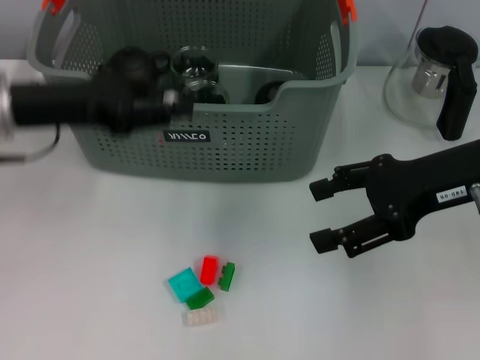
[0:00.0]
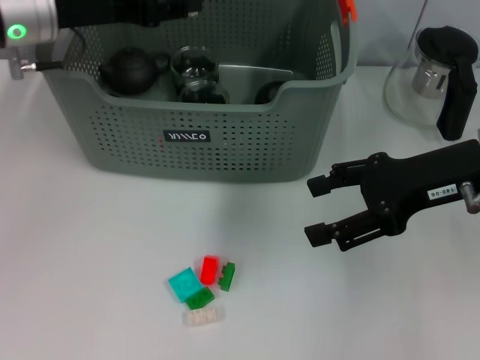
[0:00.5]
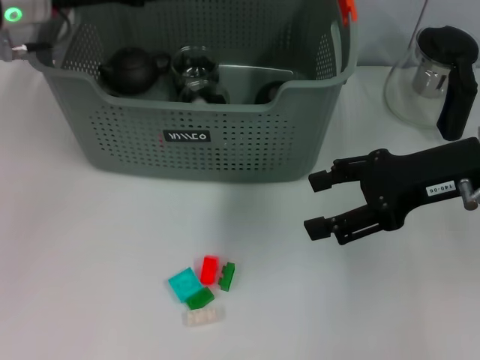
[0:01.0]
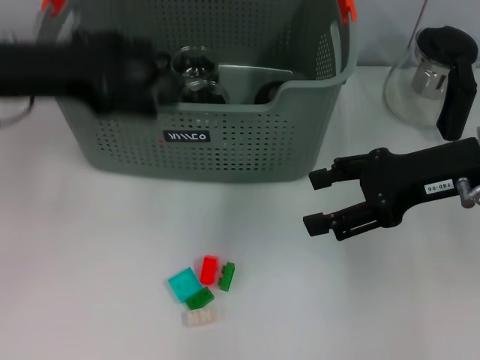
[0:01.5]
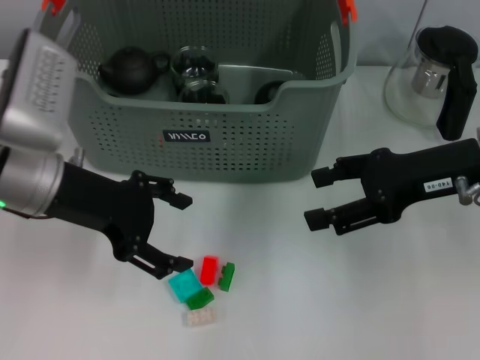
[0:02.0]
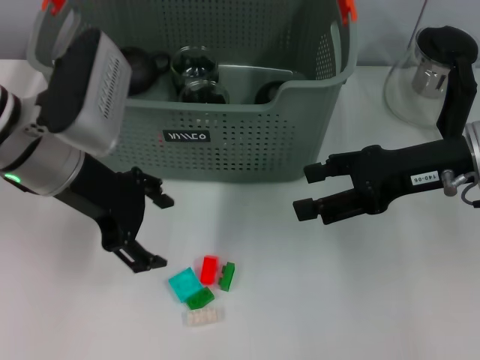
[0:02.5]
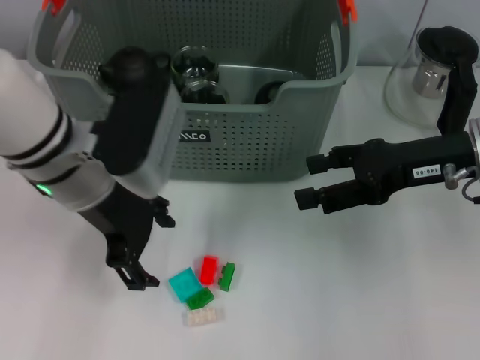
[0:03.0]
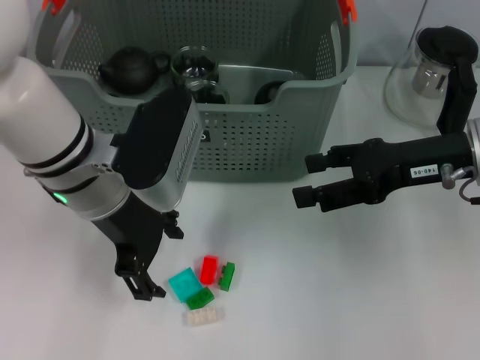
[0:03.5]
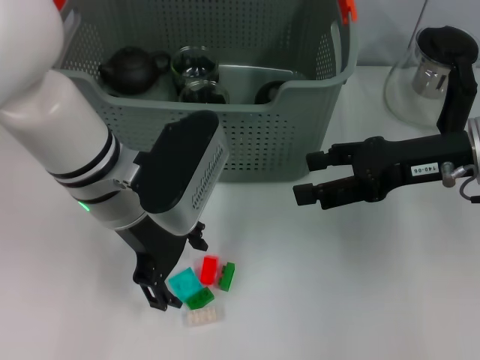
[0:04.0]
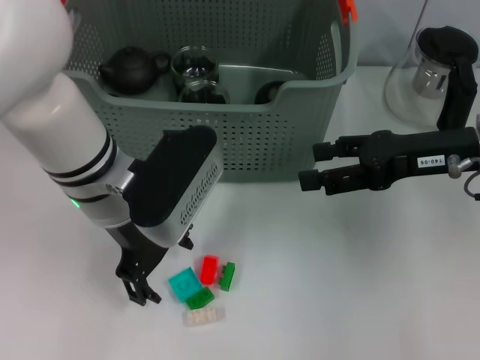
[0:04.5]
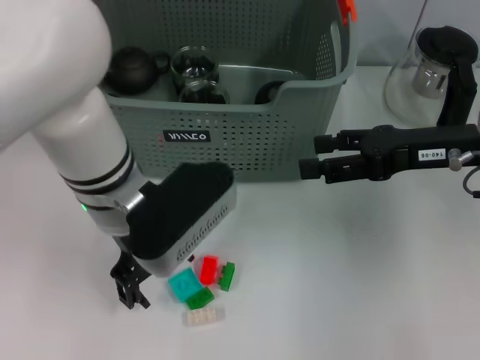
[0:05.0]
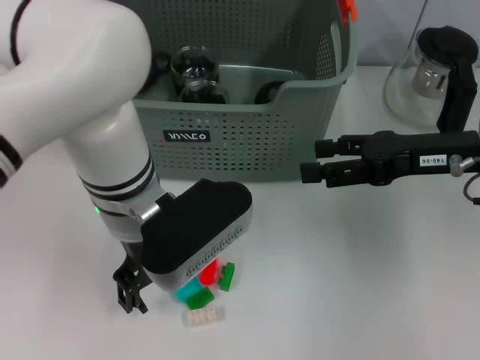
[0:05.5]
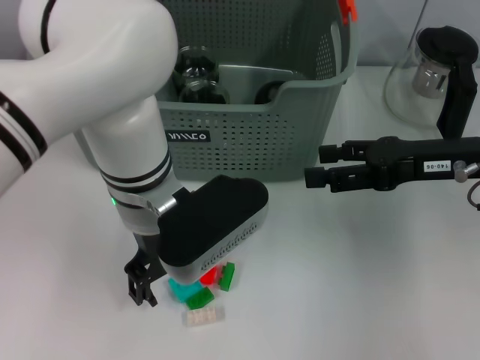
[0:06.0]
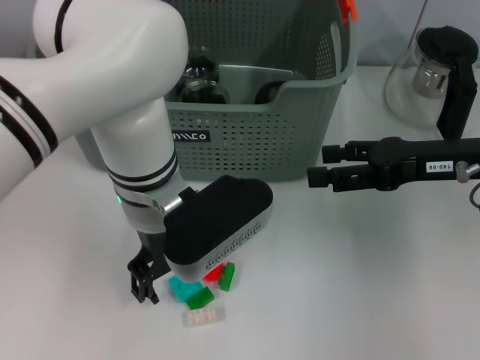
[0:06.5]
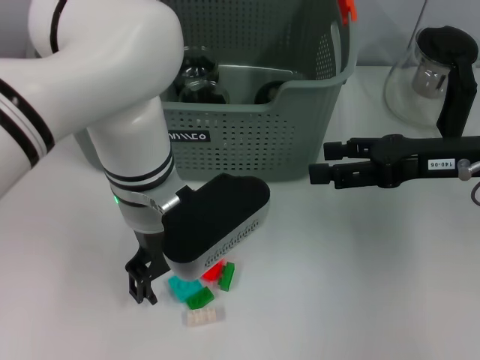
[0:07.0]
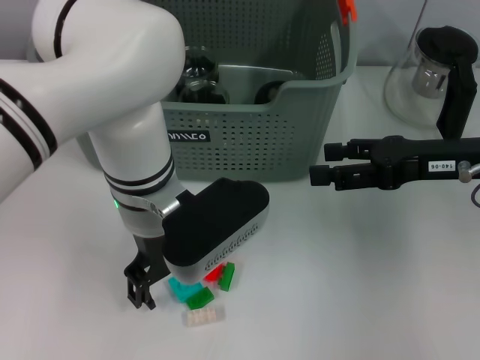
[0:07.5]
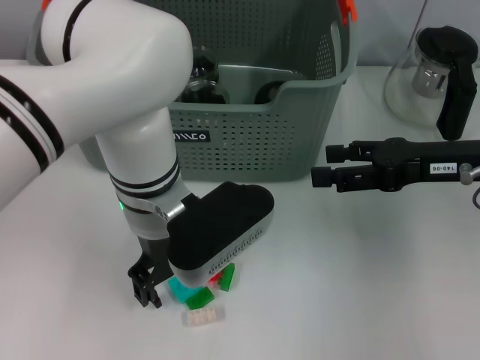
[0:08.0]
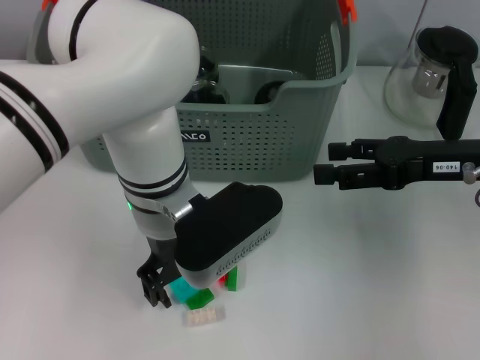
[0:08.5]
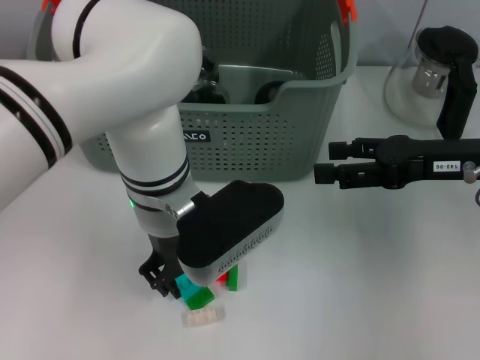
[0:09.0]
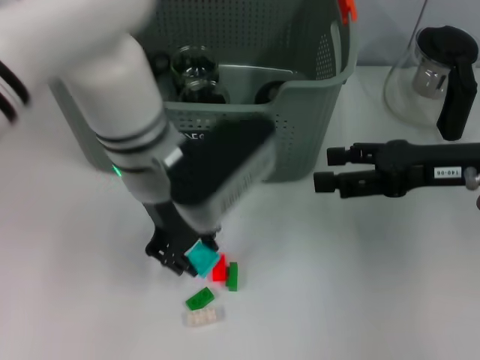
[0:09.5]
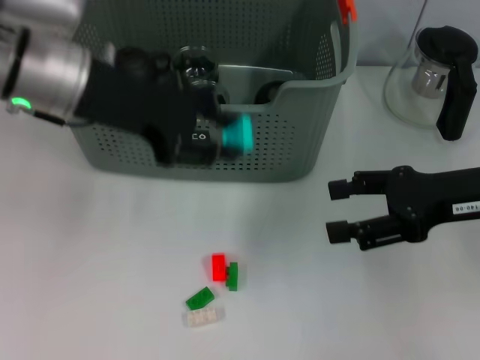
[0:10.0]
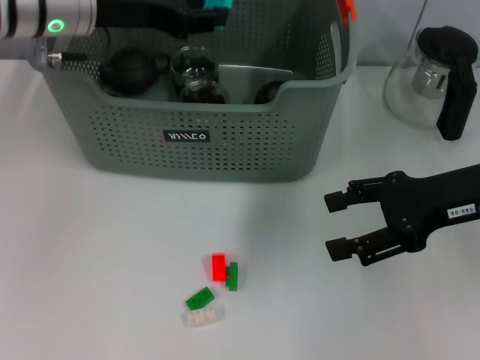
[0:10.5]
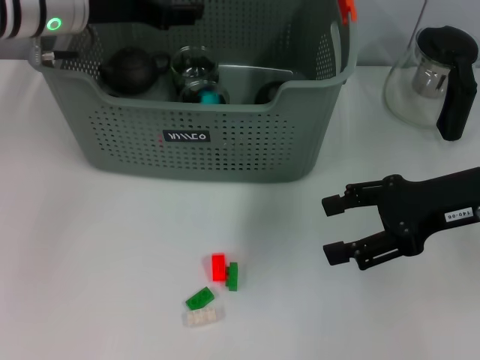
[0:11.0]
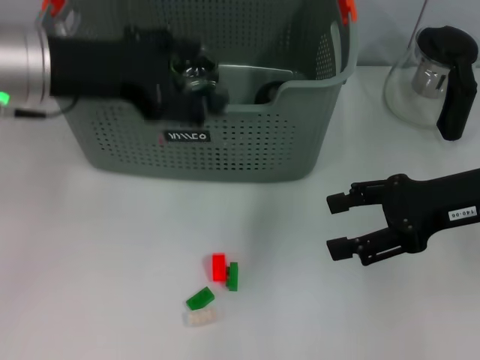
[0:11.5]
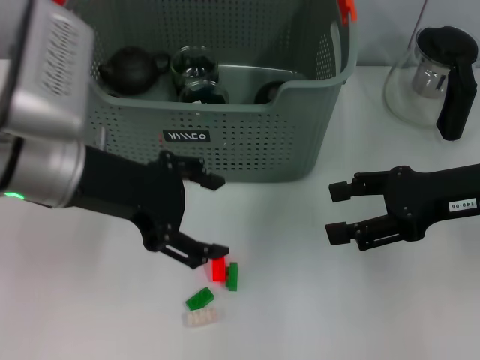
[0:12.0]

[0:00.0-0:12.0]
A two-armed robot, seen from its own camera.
Task of the whole recording: pick up the teacup on the table and place it into the storage bin, pick up the block on the table and place it into the storage bin.
Step, 1.0 to 9.0 s: Grasp the light blue block with left gripper.
Step, 9.5 to 10.5 s: Place the light blue block in the storage box with left gripper.
0.0 to 2.0 s: The left gripper goes forward and returns, about 10 cm each way, and opens up.
2.0 to 4.0 s: The left gripper moves to the right, some 10 cm.
6.0 to 8.0 s: Neither gripper changes place.
8.0 to 10.0 s: The left gripper travels to the left and upward by roughly 15 cm, and closes its fingers.
10.0 to 12.0 s: The left gripper travels backward by some 5 cm, and opens.

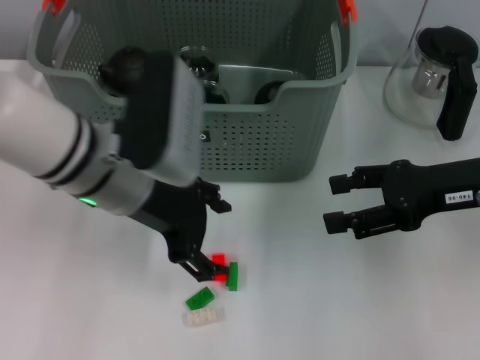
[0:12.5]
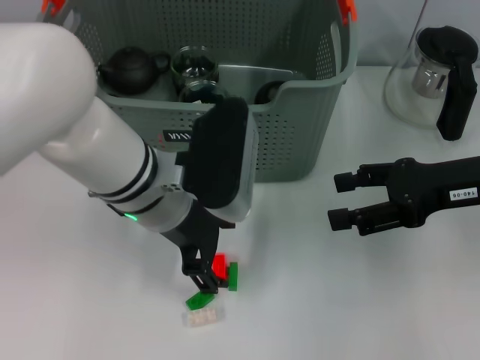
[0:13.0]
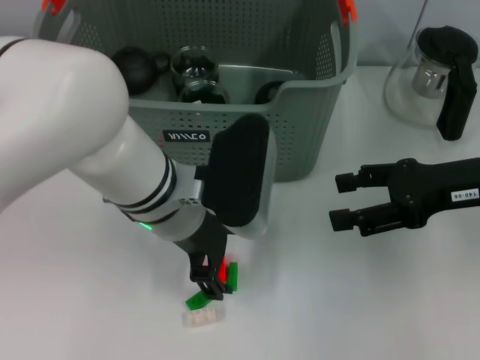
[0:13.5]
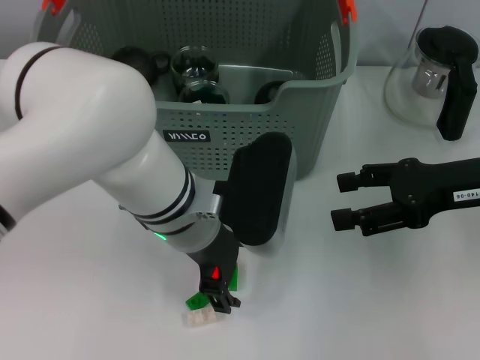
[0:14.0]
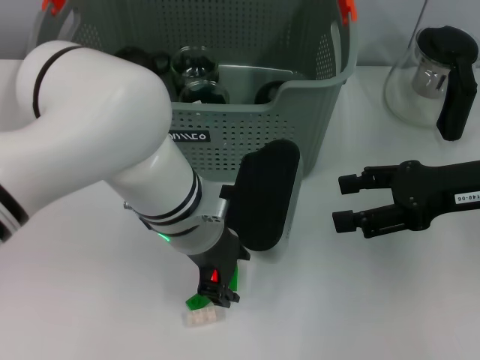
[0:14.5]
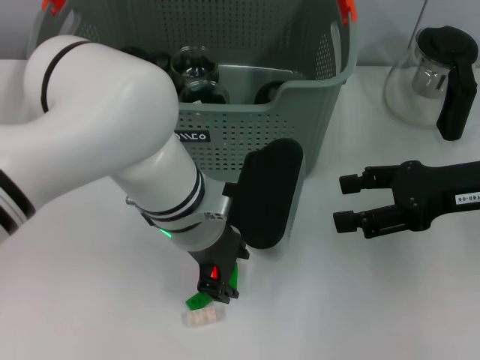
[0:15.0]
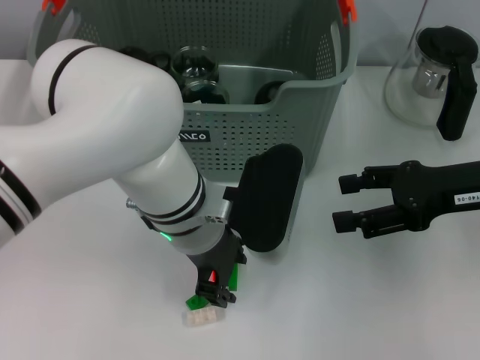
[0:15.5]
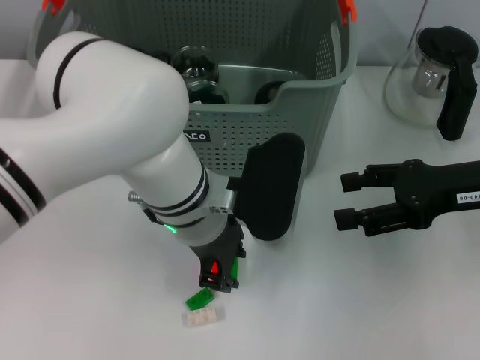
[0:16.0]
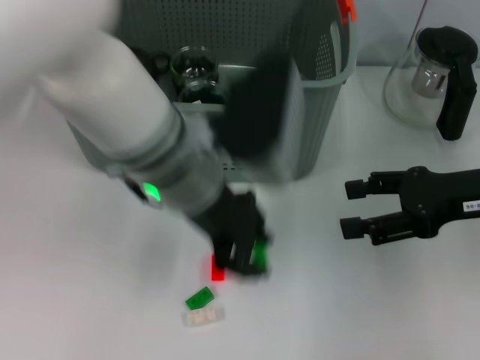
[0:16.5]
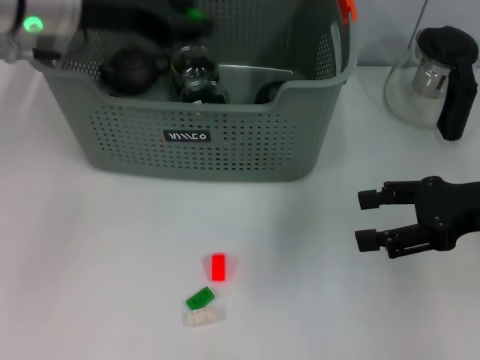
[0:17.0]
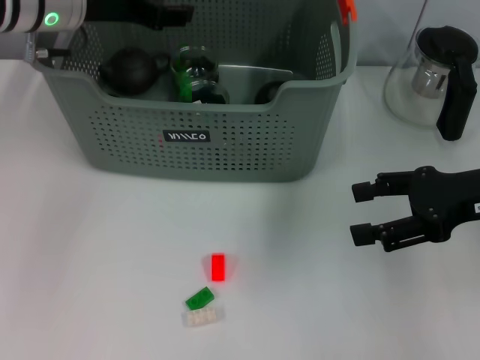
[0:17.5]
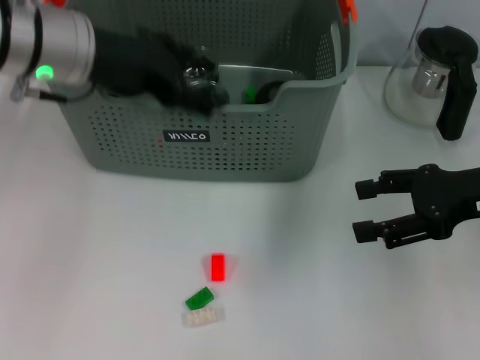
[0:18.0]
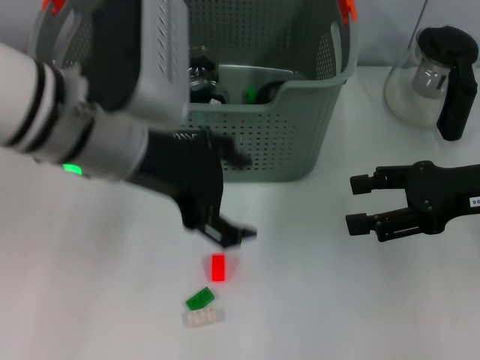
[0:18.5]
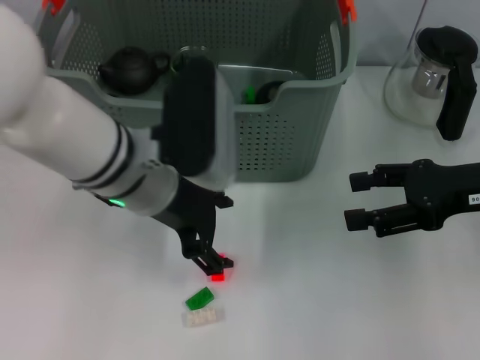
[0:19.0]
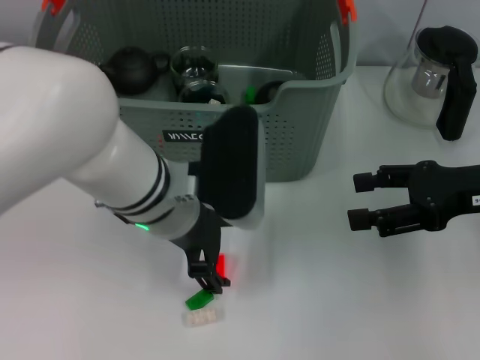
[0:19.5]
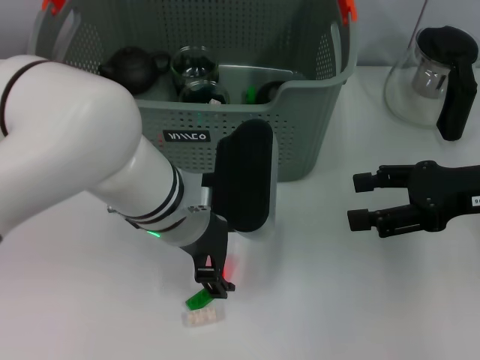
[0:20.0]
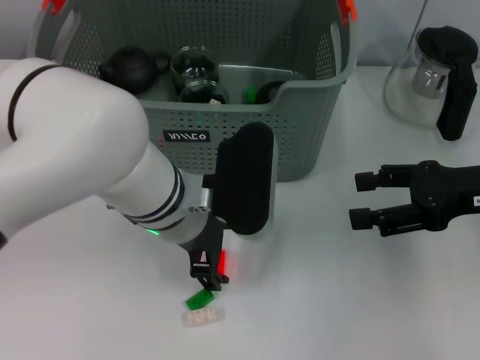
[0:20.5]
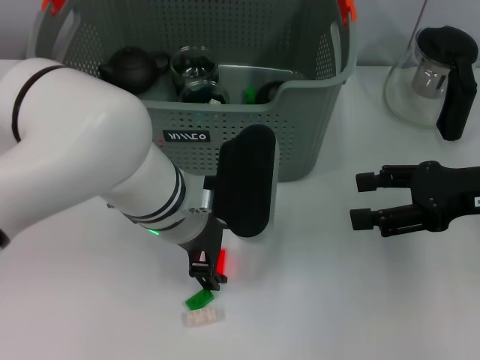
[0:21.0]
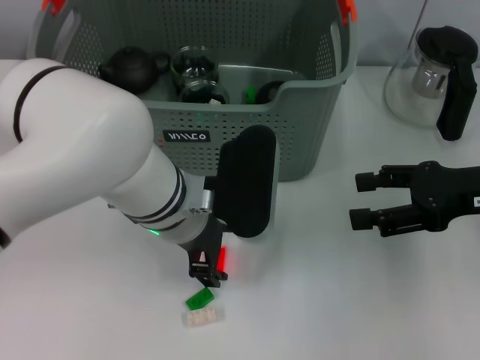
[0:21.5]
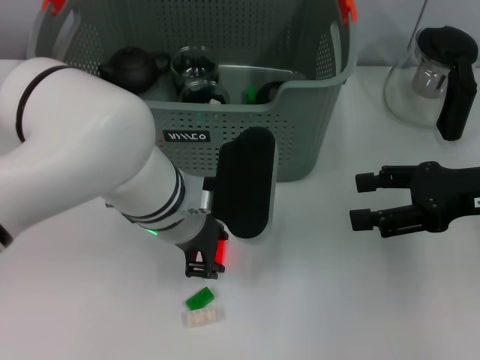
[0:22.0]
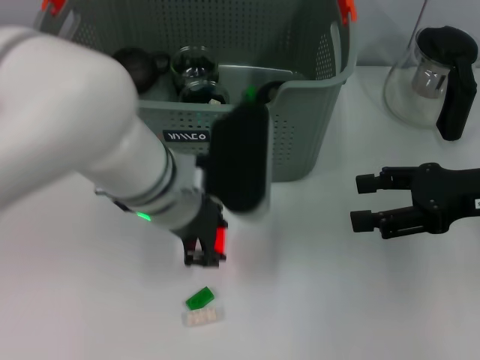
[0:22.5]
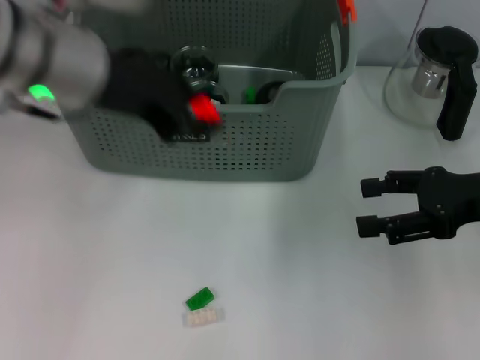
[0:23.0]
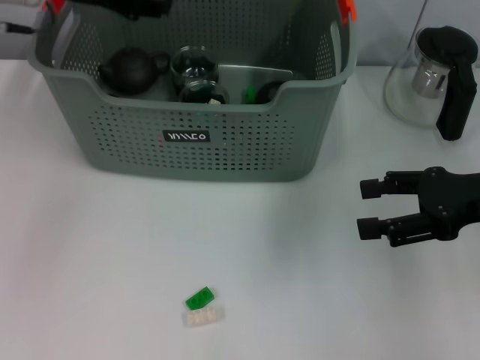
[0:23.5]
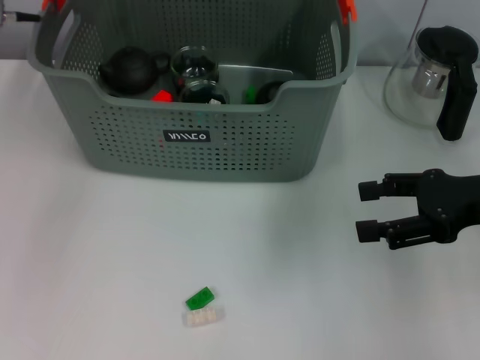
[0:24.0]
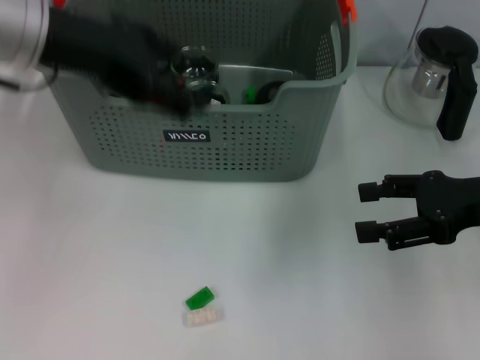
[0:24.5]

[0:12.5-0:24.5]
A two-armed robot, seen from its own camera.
Task of the whole recording: pick up the teacup on the table and place it into the storage bin, pick up the block on the table and place it into the storage bin.
Step, 12.5 to 15.5 s: Grasp the green block with left gripper.
Step, 16.0 to 17.0 s: Place the green block in the storage box with left gripper.
Step, 18.0 to 22.0 s: Grasp the orange block with left gripper.
Step, 22.5 to 23.5 s: Place the orange block in the storage box with left gripper.
12.5 to 14.5 s: The left gripper heads to the right, covering roughly 5 cm.
14.5 to 16.5 s: The left gripper goes some 5 cm upward, and closes up.
16.5 to 18.5 s: The left gripper goes roughly 5 cm to the left, and opens up.
18.5 to 20.5 s: The left gripper heads downward and to the right, covering some 10 cm.
20.5 to 22.5 s: The left gripper closes.
22.5 to 24.5 s: The left gripper shifts approximately 15 cm upward and to the left, and opens up.

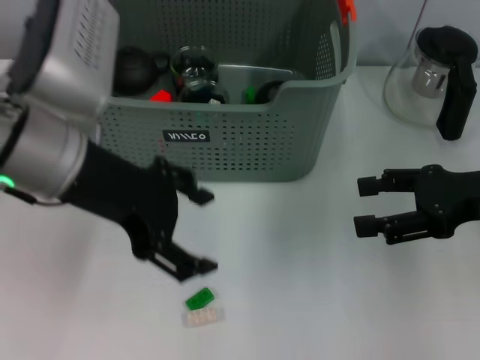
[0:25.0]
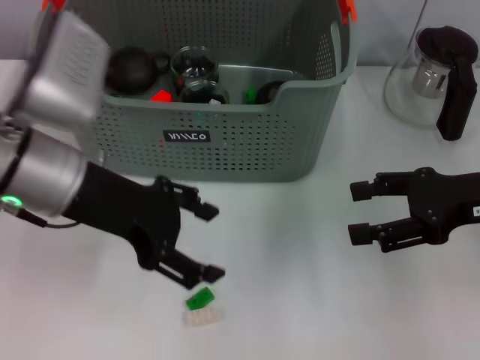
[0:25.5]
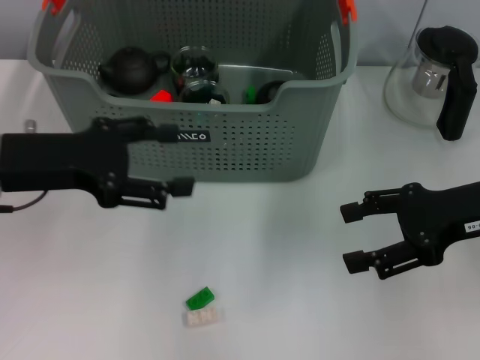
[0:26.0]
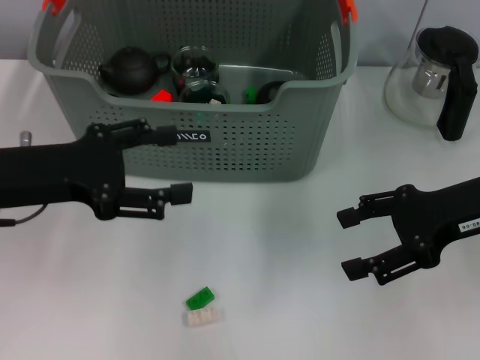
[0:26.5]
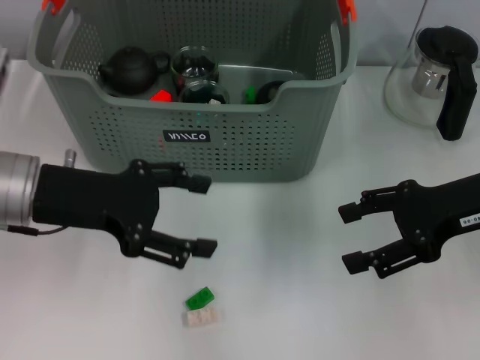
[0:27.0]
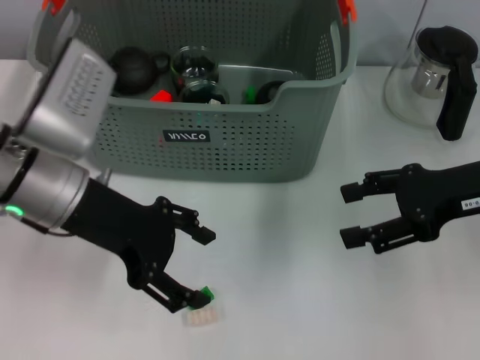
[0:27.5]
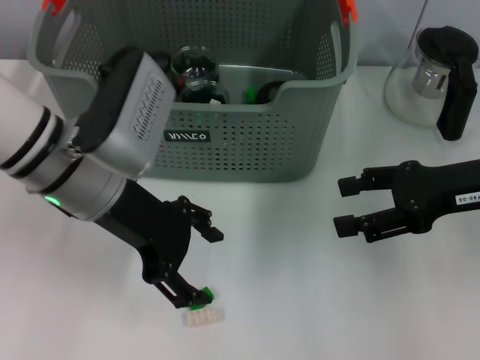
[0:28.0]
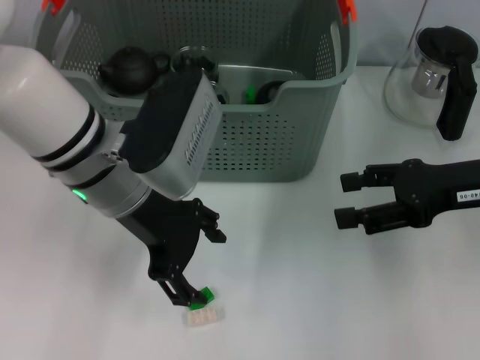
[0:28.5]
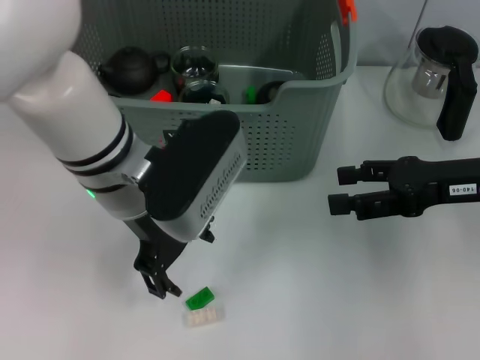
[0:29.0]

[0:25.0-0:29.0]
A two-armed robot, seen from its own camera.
Task of the whole recording: pick up the teacup on the table and place it into the storage bin, pick up the block on the table and place it into the storage bin.
25.0 to 27.0 s: The left gripper heads downward and to the left, covering approximately 10 cm.
27.0 to 29.0 s: The left gripper moves to the right, some 10 cm.
